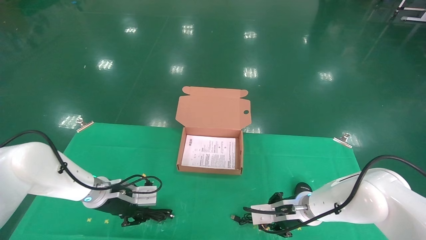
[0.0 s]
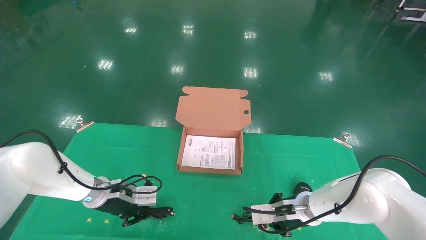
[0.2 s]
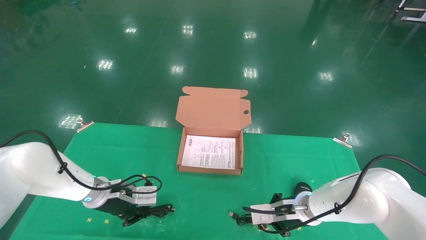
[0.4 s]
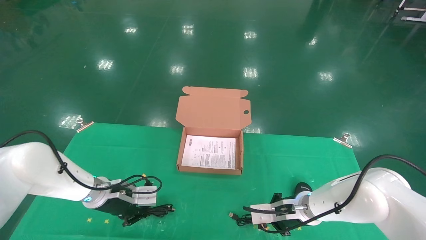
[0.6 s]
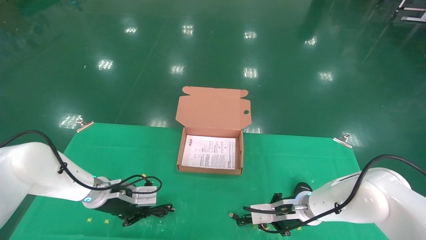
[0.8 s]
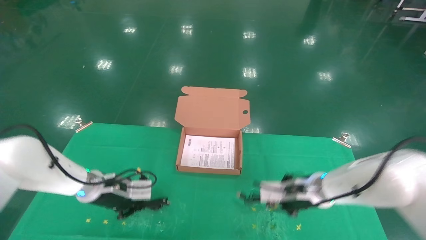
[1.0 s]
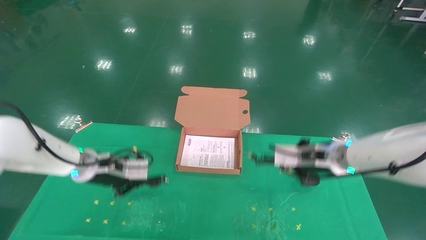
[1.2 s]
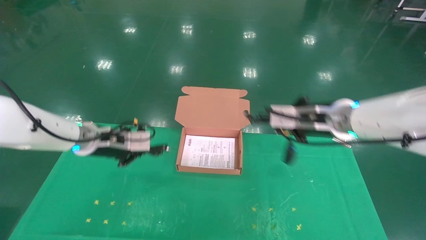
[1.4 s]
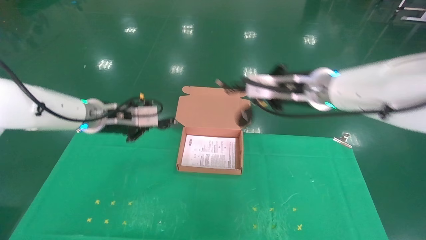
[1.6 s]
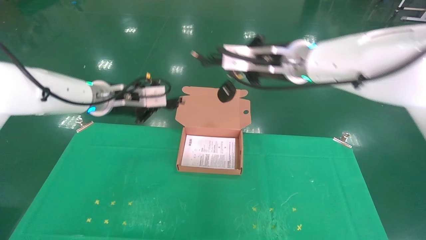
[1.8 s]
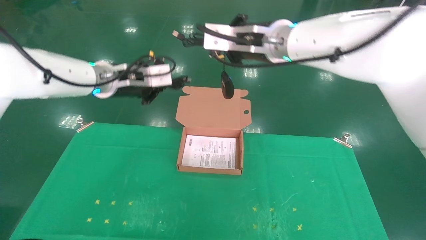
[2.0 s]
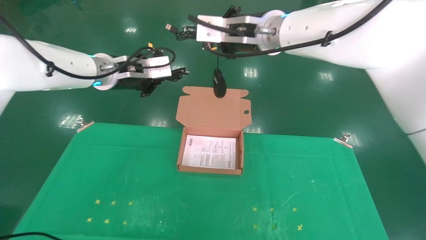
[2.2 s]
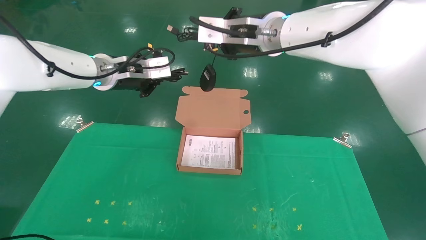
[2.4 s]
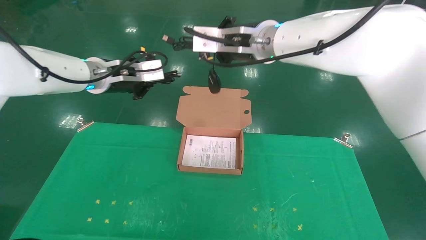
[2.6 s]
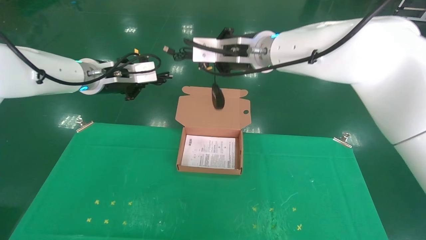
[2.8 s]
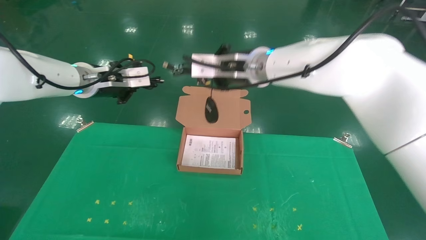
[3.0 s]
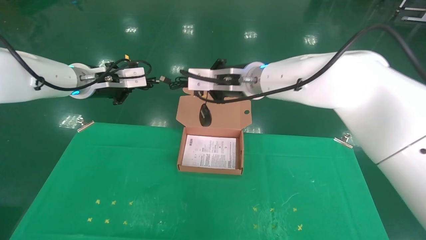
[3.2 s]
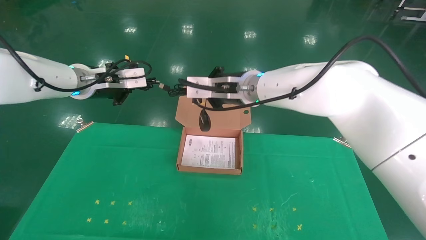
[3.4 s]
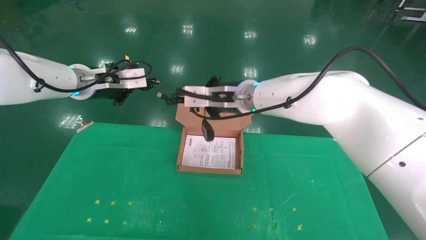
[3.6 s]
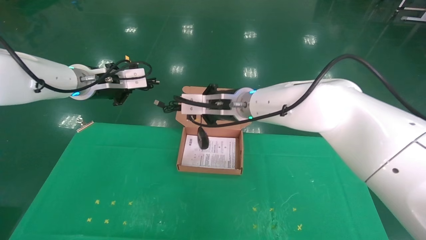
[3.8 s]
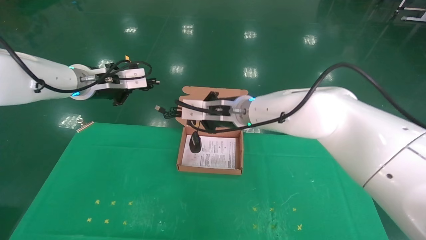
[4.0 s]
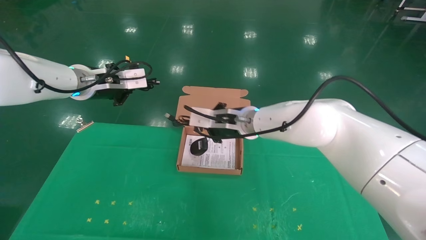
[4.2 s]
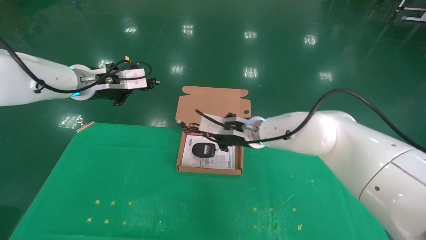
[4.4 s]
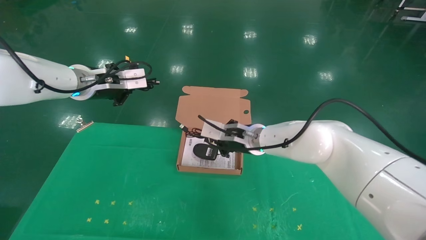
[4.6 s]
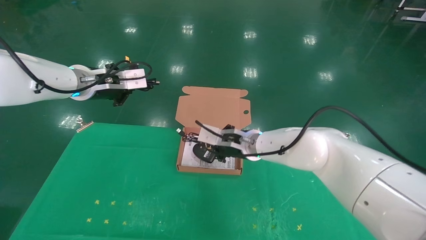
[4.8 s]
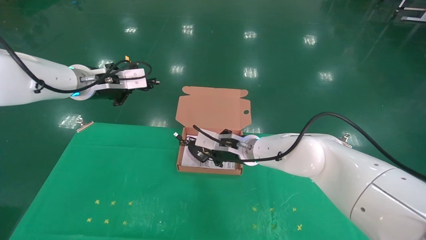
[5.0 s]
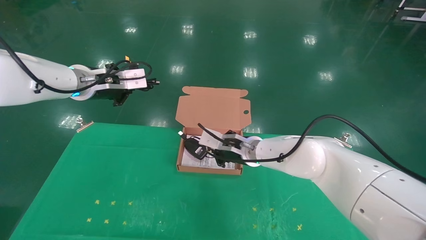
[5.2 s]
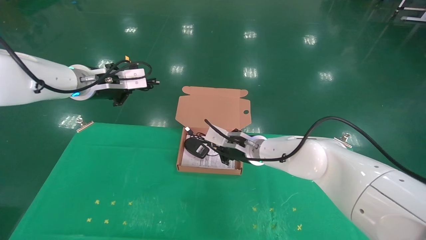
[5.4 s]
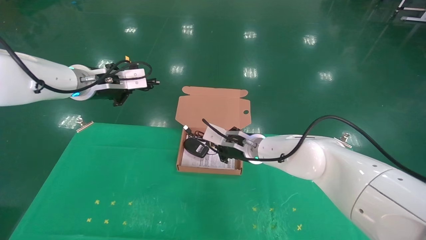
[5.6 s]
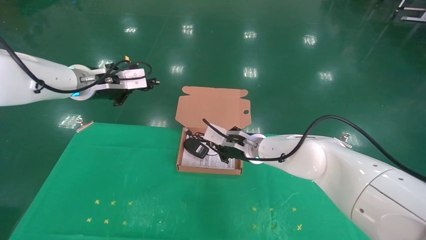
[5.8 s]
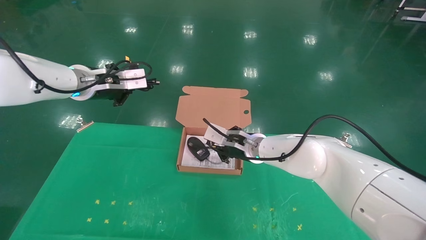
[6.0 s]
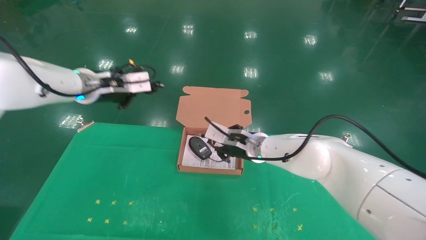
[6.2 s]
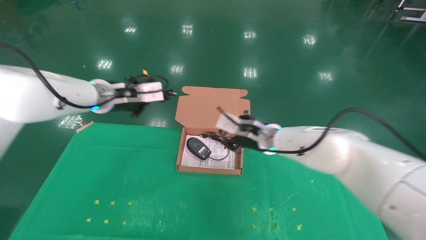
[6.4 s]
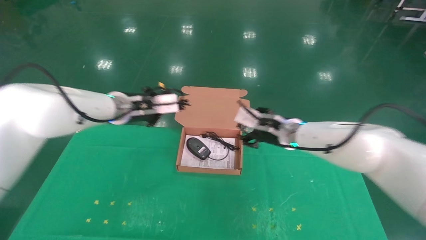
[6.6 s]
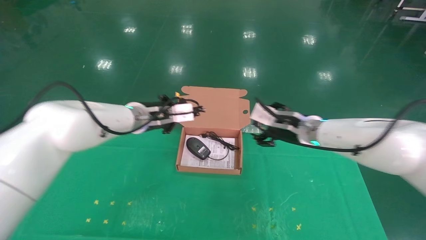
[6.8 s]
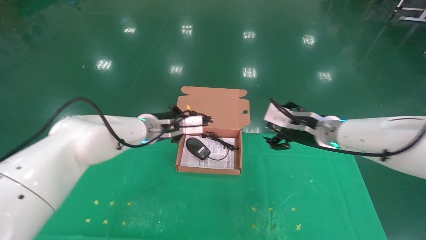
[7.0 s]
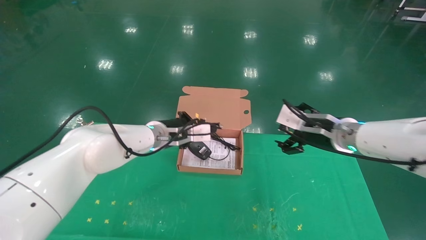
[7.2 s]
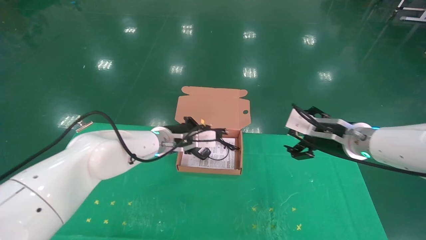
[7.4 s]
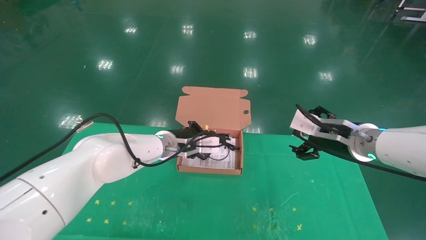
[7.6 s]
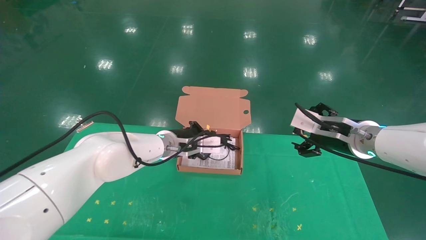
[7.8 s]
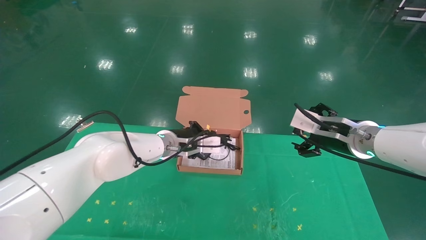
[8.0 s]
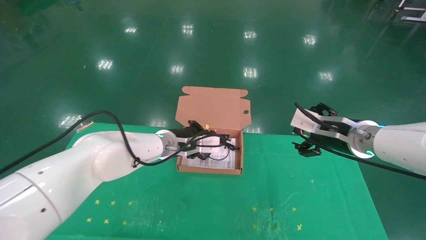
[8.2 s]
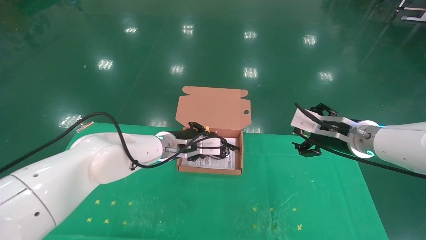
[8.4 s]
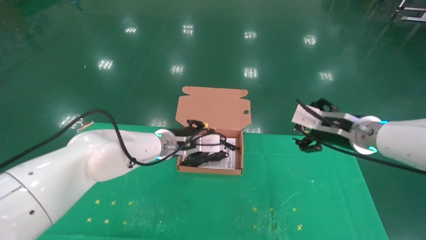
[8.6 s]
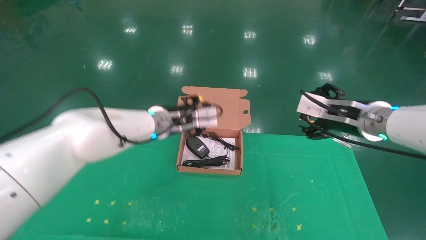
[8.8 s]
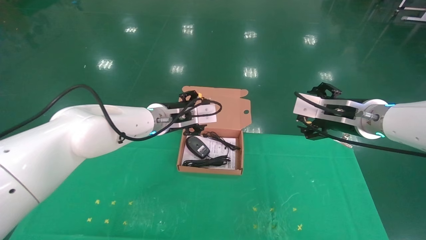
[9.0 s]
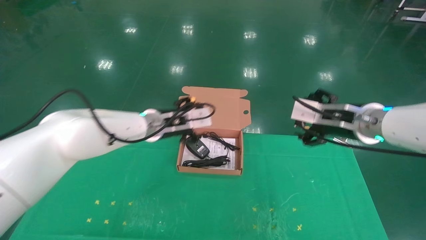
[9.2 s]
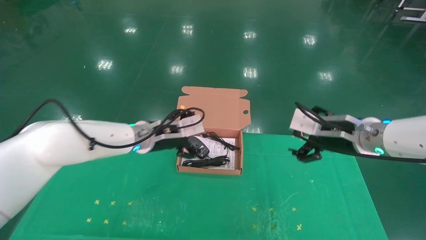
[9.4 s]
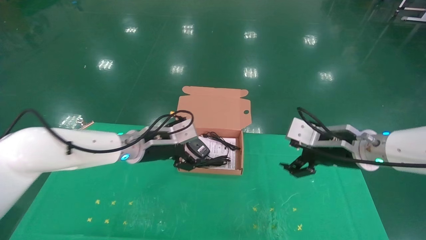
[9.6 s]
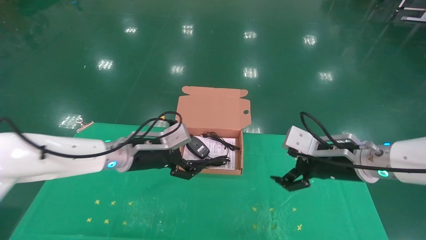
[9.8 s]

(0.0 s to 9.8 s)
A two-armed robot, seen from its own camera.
Task of the whole recording: grasp data cable left put into box grasp mouse right put into box.
Step, 0.0 s - 2.2 s: Grab and pick up both the mouse and power cord from the accessory packaging area at the same time.
Step, 2.4 s - 8.4 s: Place the mouse and power cord into the box.
0.0 s - 1.4 s: The right gripper travels upward by about 20 cm, and closes. Meanwhile the left gripper moves upward, roughly 15 cm, and closes its fingers.
1.4 s - 2.8 s: The left gripper travels upward by roughly 15 cm. The right gripper heads to the left and upward, covering some 20 cm.
2.8 s - 4.2 s: The right gripper is displaced downward by some 15 cm.
4.2 s - 5.6 s: The right gripper heads downward, covering some 10 cm.
5.6 s - 7.0 s: The left gripper heads to the right and downward, covering about 20 cm. Meanwhile the right gripper travels to the right, upward and backward by roughly 20 cm, and opens its fingers.
7.0 s - 8.4 s: The right gripper ends up some 5 cm from where it was.
8.4 s - 9.8 s: The right gripper changes place by about 5 cm. The left gripper heads to the left and backward, covering approximately 10 cm, and opens.

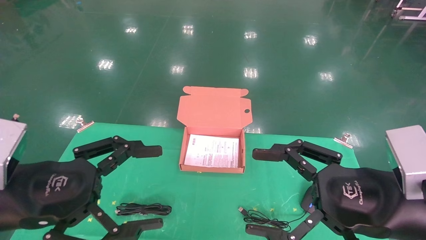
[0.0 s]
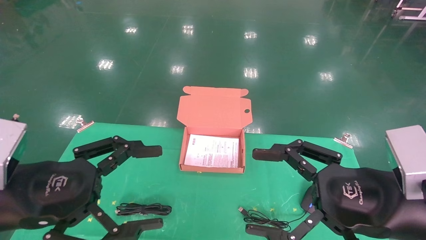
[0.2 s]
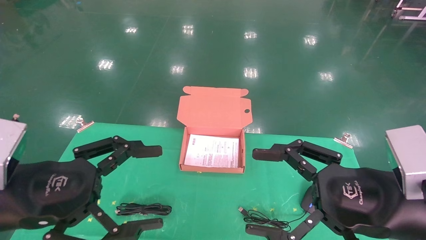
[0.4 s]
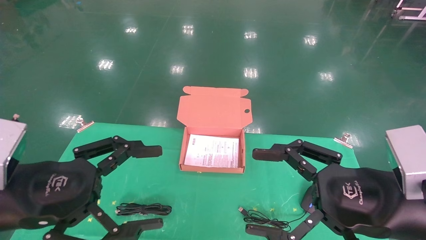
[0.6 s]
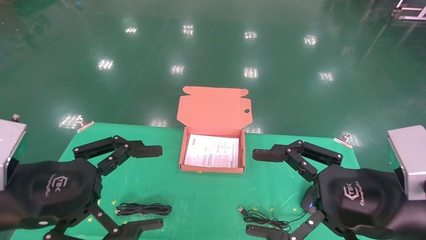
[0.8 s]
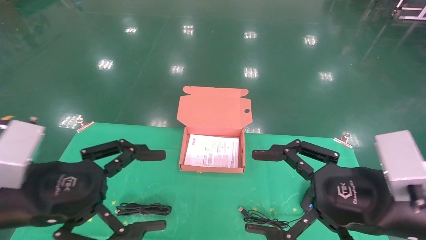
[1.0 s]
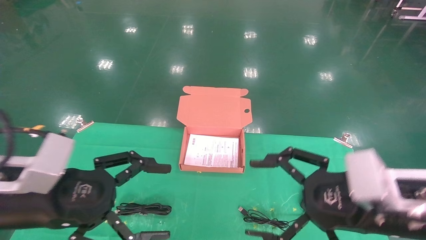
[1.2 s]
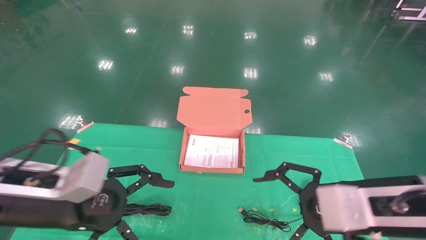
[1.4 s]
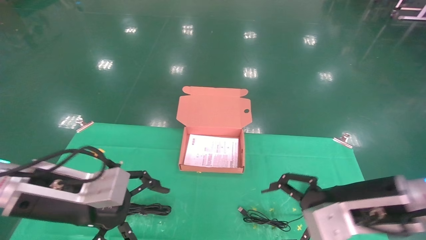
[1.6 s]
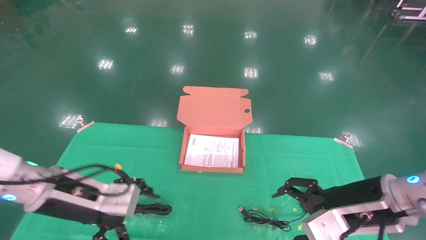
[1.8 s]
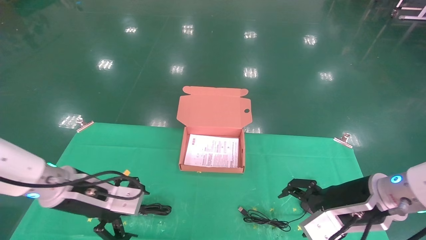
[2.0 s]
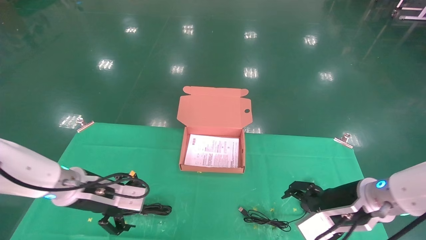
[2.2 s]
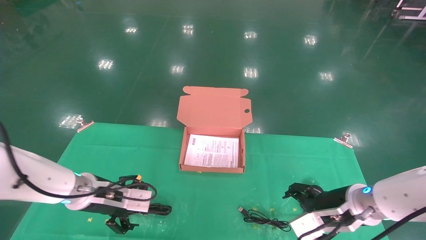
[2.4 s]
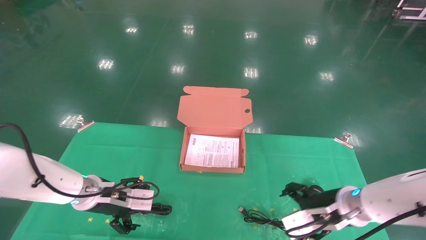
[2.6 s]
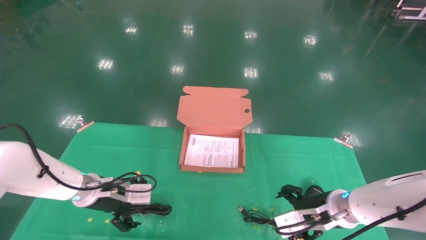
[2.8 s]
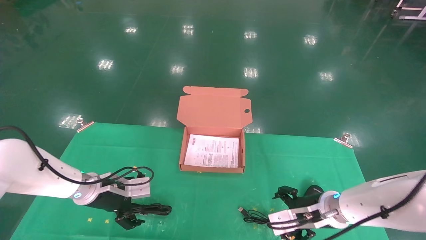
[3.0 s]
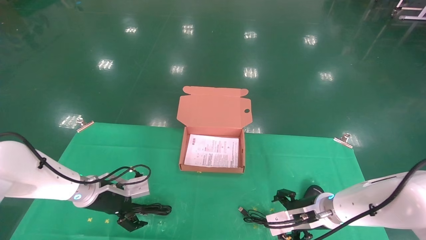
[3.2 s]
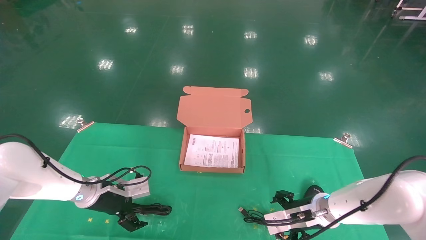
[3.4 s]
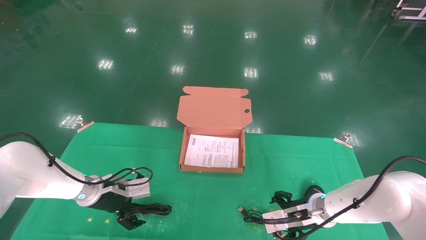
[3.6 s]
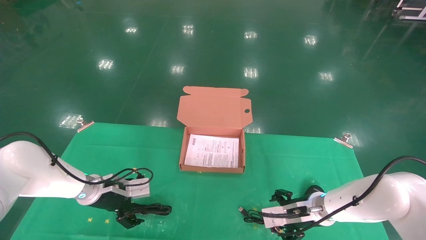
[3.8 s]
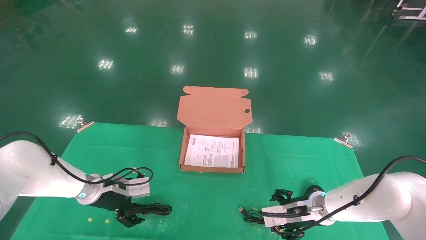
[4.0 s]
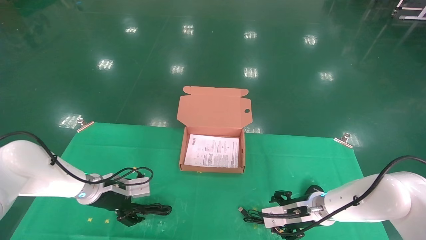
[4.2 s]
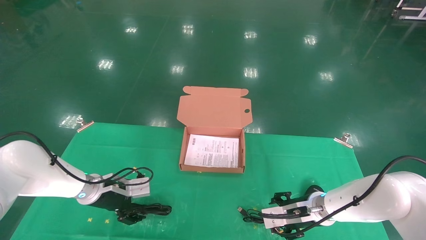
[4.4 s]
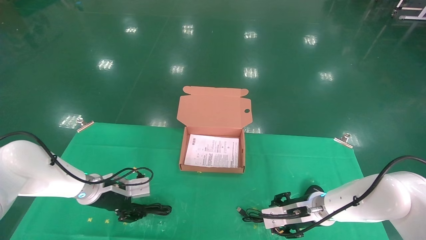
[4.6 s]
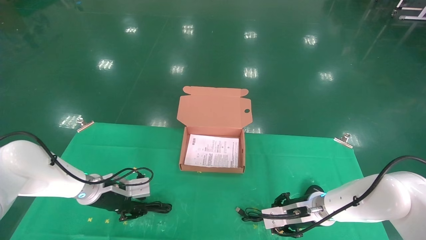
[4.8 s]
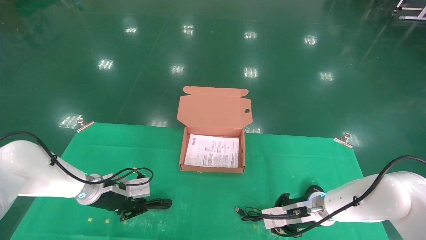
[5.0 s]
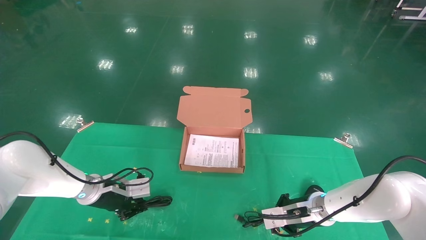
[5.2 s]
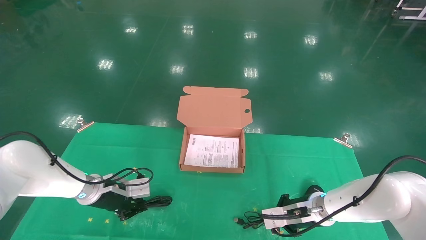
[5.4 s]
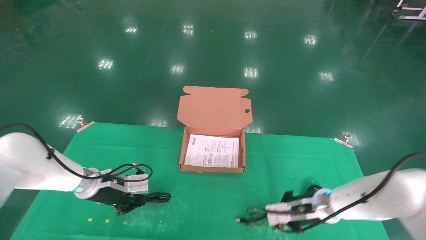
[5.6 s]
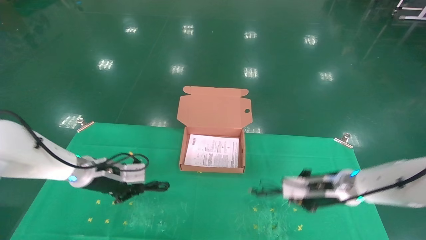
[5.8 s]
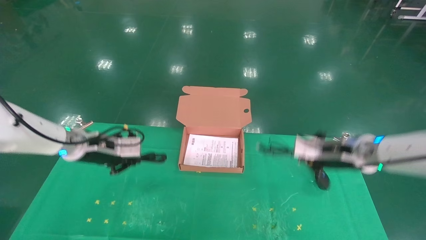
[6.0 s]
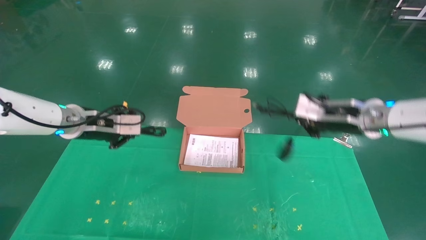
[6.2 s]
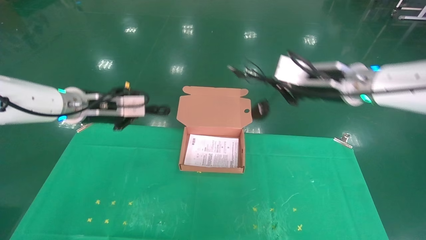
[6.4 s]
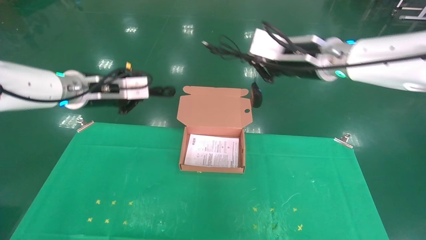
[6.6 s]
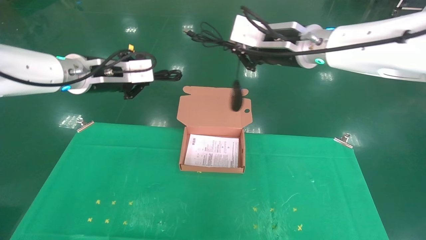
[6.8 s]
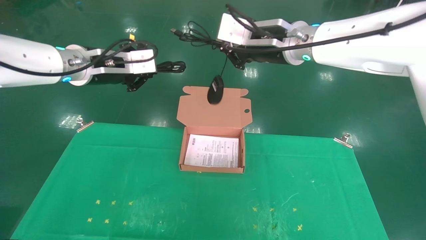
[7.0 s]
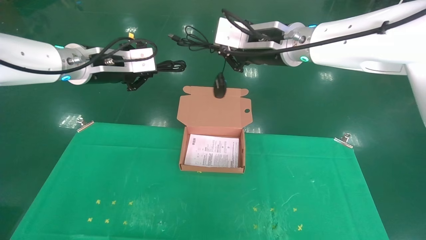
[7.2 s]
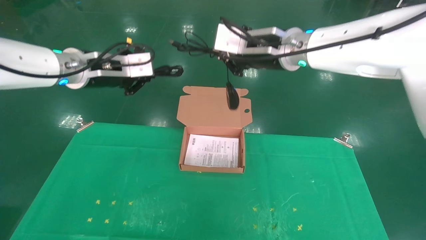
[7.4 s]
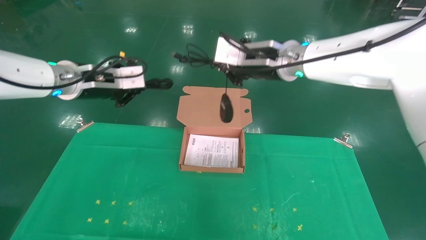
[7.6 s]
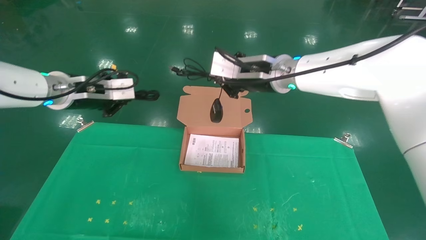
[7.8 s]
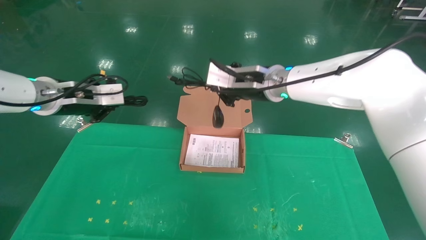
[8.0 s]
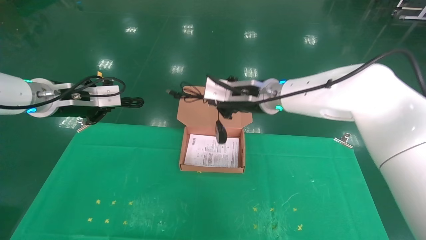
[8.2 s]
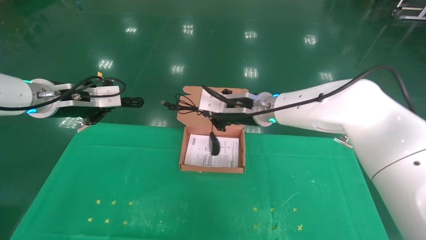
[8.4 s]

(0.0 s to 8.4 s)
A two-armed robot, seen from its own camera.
Task of the whole recording: grasp data cable left put into box grasp mouse right put into box.
Step, 0.6 s - 6.0 s: Grab and pick up both the mouse and power cord from the accessory packaging area at the same time.
0.0 s - 1.4 s: The left gripper ends up approximately 5 cm from where it was.
1.4 s - 2.8 s: Both grippers move forward and downward, some 20 cm.
2.8 s - 4.2 s: The right gripper ends up roughly 5 cm from where it was.
4.2 s - 5.6 s: The right gripper closes, while the left gripper closes its fingers.
5.6 s - 7.0 s: Both grippers travel together upward, some 30 cm.
7.0 s - 8.4 s: The right gripper shifts approximately 15 cm downward; the left gripper travels to the left and downward by approximately 10 cm.
